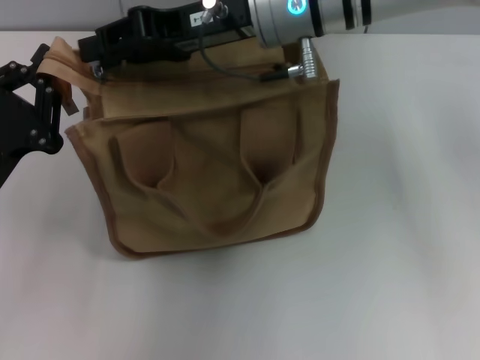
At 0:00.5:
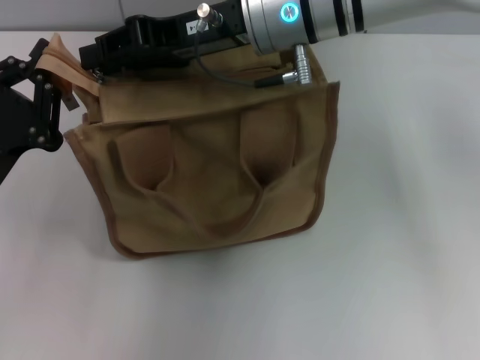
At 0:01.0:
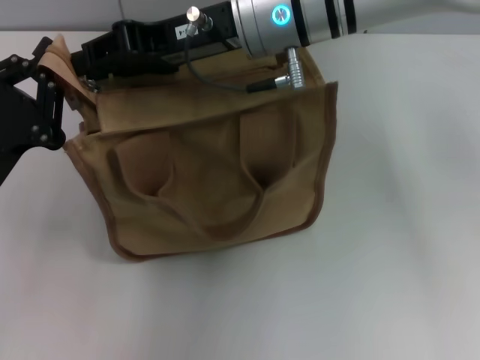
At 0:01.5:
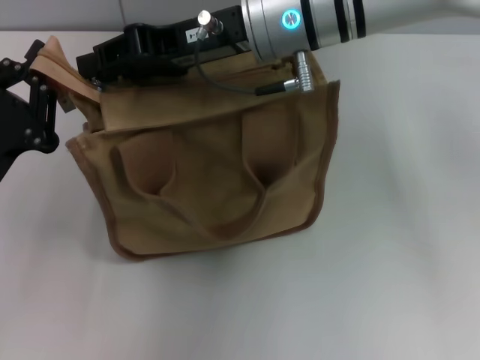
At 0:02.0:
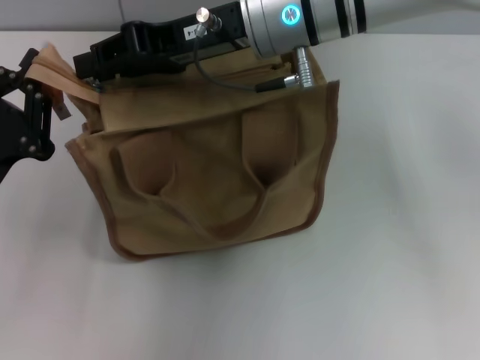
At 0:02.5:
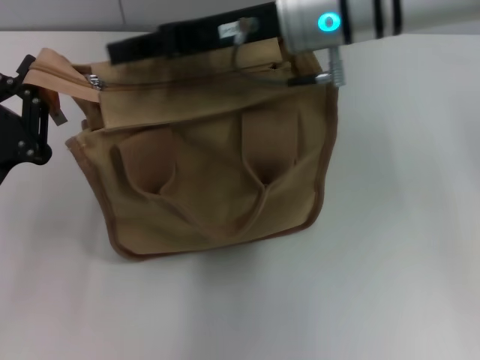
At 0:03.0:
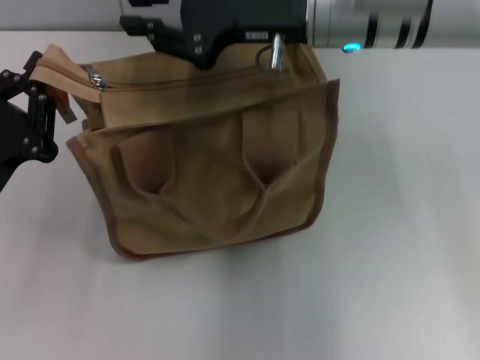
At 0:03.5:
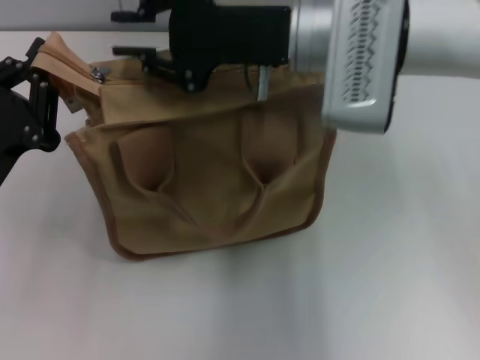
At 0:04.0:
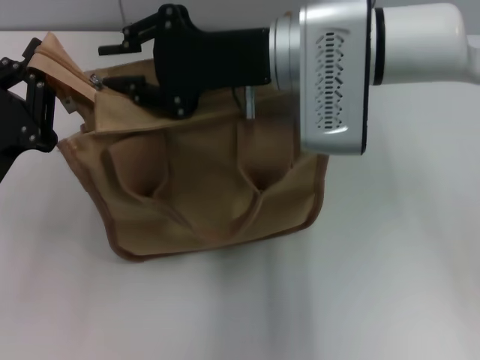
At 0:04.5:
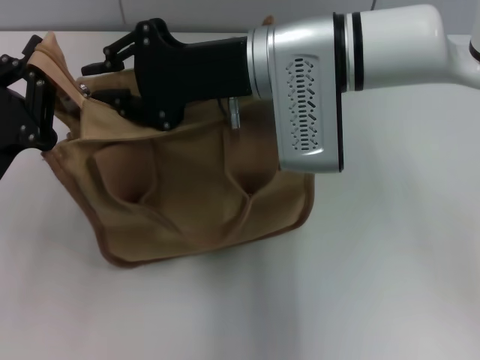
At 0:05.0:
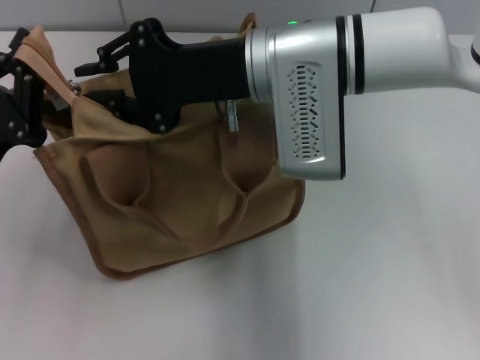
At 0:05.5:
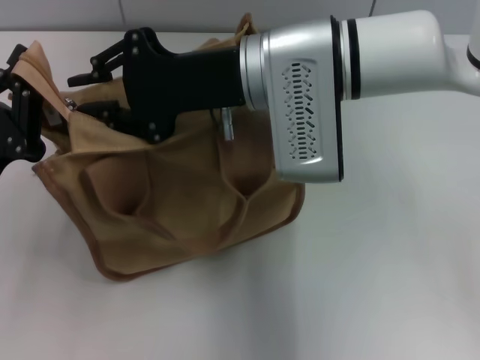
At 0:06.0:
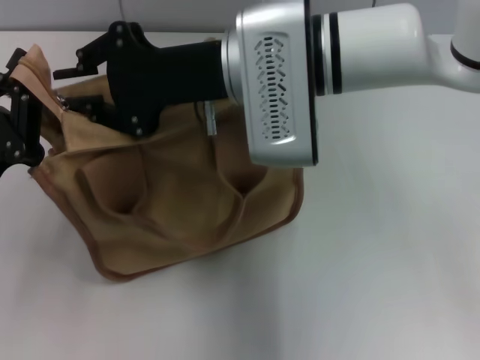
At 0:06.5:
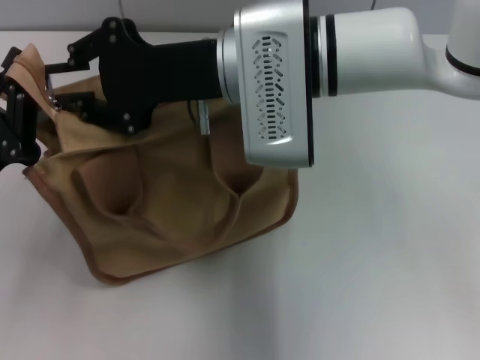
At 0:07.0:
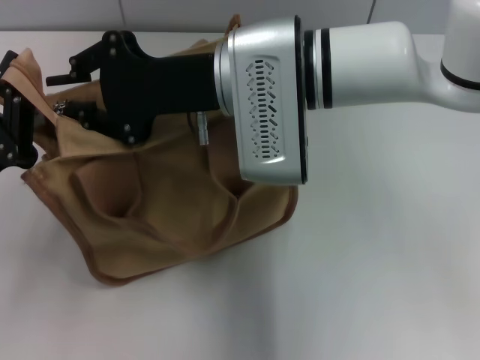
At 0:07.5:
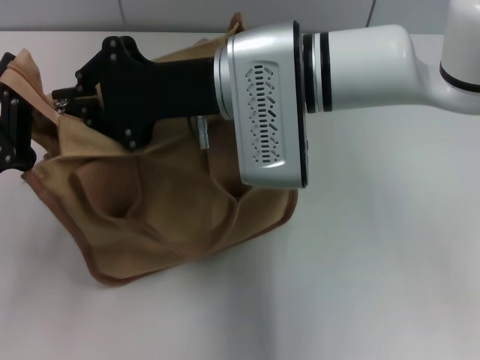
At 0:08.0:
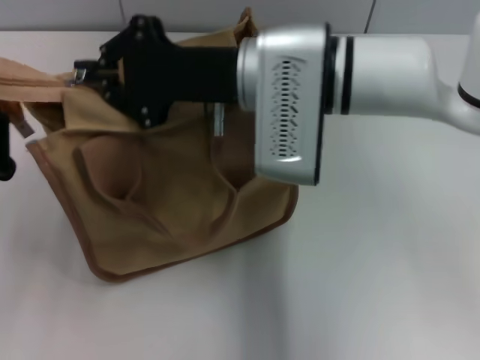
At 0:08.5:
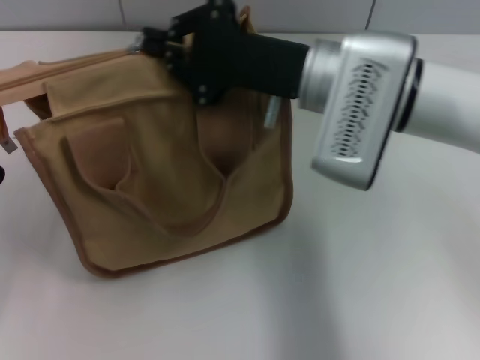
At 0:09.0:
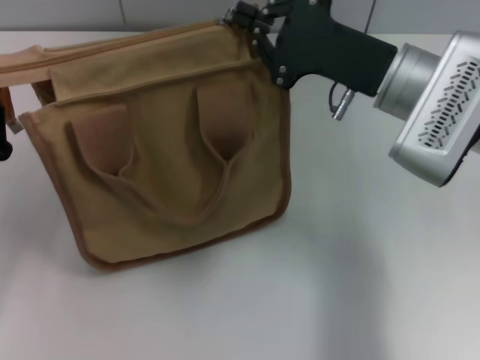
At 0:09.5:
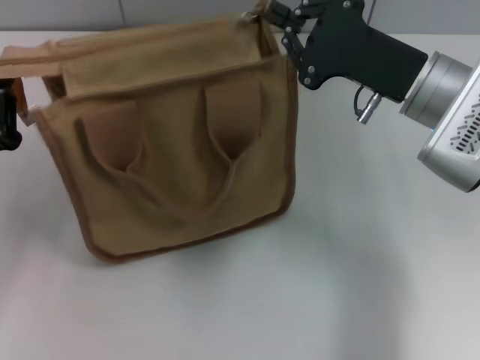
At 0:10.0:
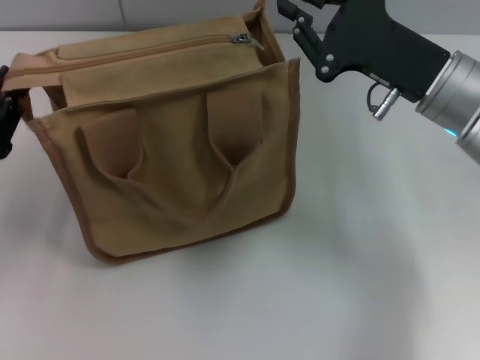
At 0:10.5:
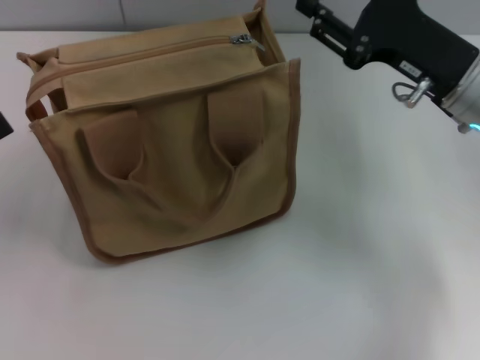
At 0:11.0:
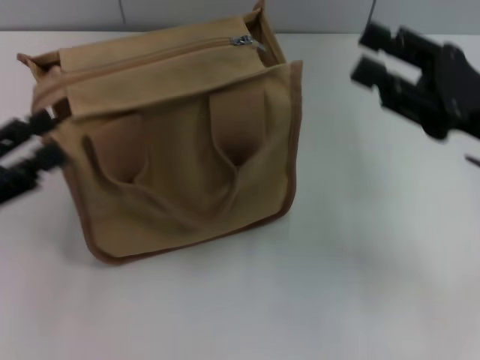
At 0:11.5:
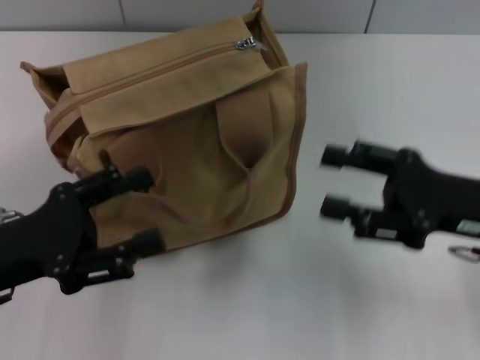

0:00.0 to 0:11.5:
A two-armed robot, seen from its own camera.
Step, 0:00.0 to 0:09.5: Pull up the zipper with your right hand.
Step, 0:10.0 to 0:10.5: Grab the zipper with your left hand.
0:00.0 to 0:02.0: The two grippers keep their place.
0:07.5 to 0:09.5: The right gripper goes roughly 15 cm to the right.
0:09.5 to 0:11.5: The right gripper moves backward and to the right, some 10 cm, and opens; the left gripper goes to the left and returns, approximately 10 cm each way, and opens.

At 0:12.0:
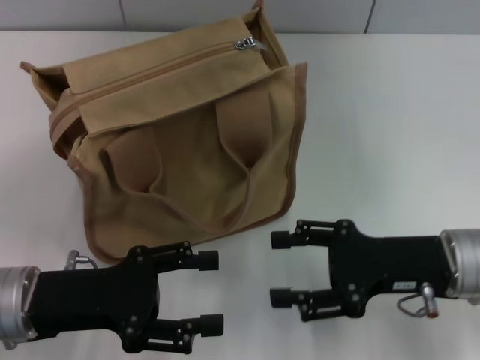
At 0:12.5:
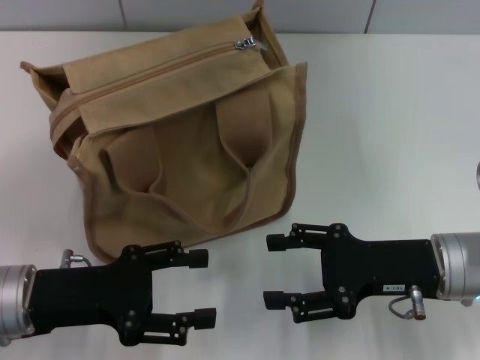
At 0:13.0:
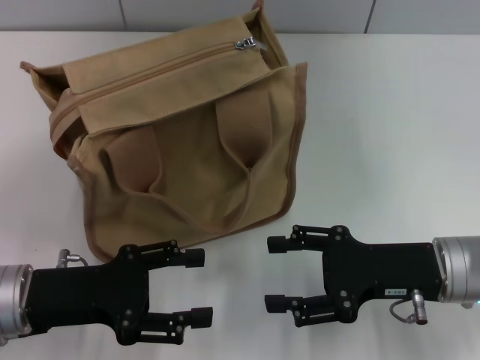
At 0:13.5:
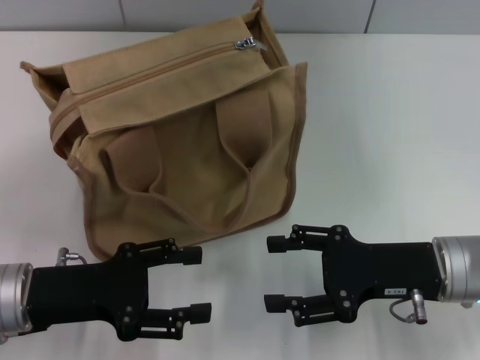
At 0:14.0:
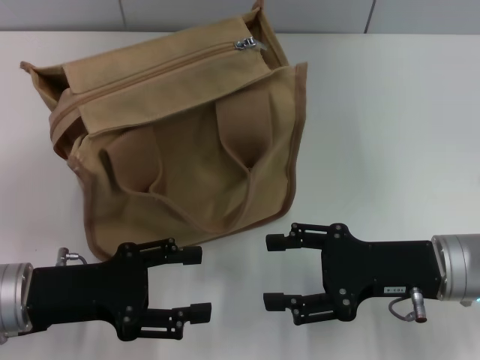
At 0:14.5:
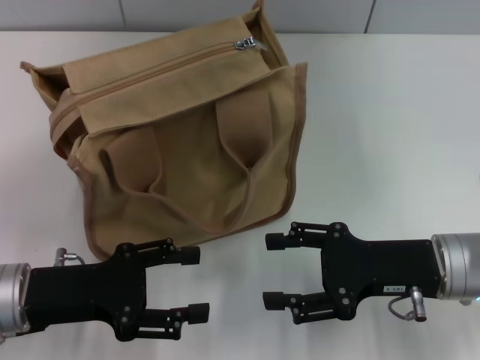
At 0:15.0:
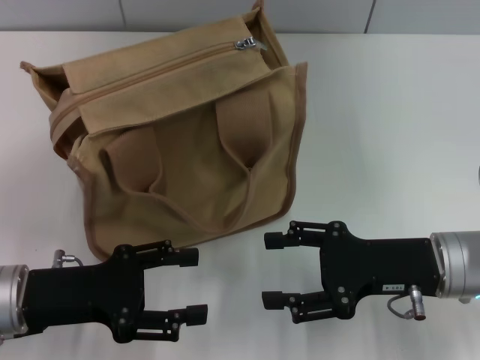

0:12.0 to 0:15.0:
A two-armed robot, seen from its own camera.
0:12.0 to 0:13.5: There are only small adjustments of the grippers.
0:13.5 to 0:15.0: Both grippers stay put.
